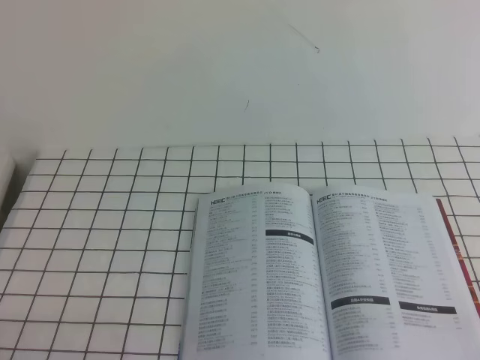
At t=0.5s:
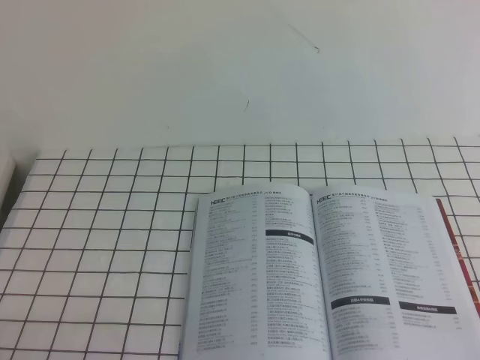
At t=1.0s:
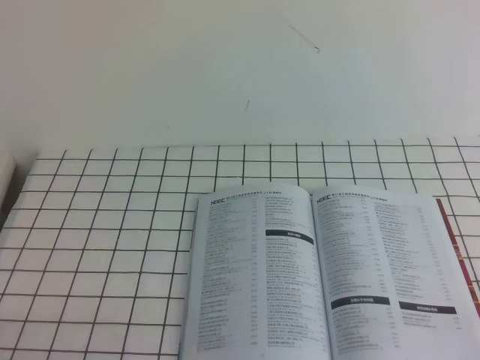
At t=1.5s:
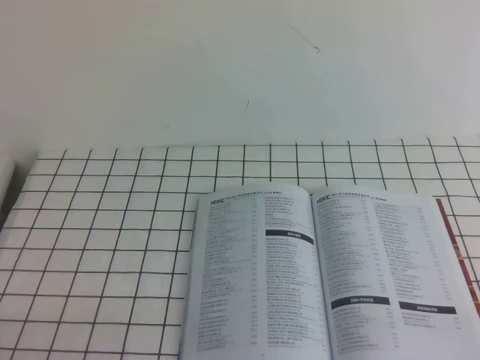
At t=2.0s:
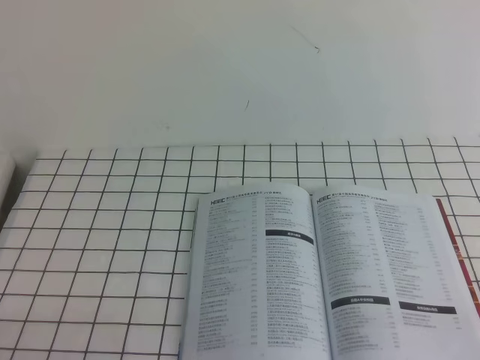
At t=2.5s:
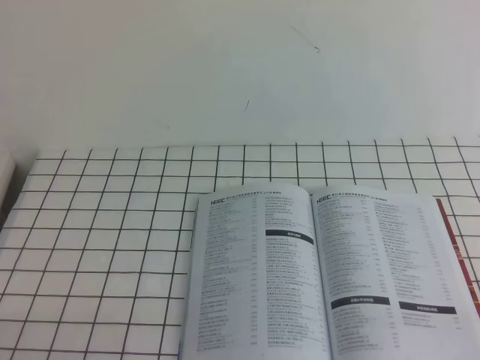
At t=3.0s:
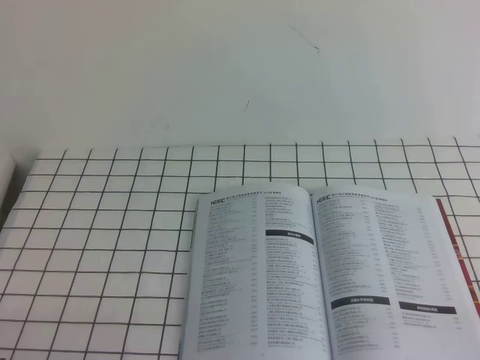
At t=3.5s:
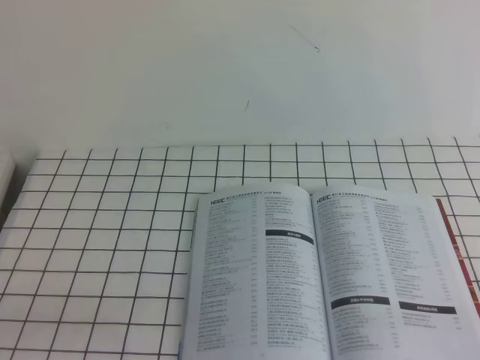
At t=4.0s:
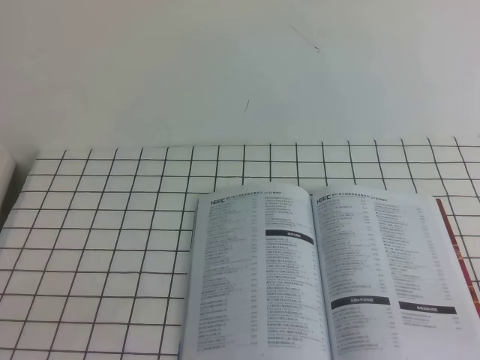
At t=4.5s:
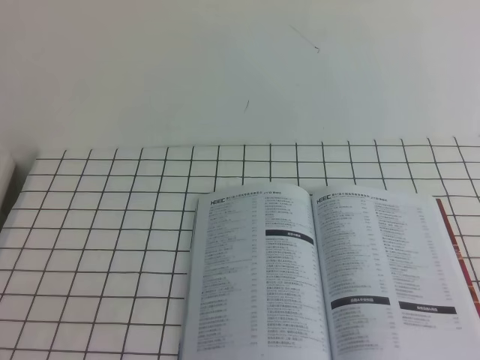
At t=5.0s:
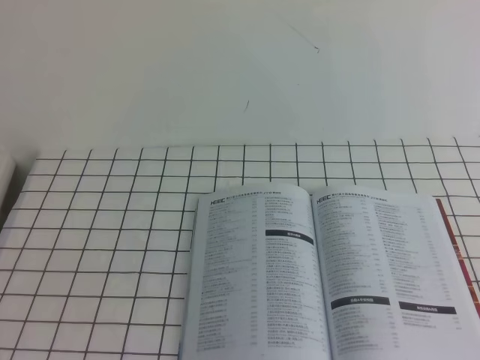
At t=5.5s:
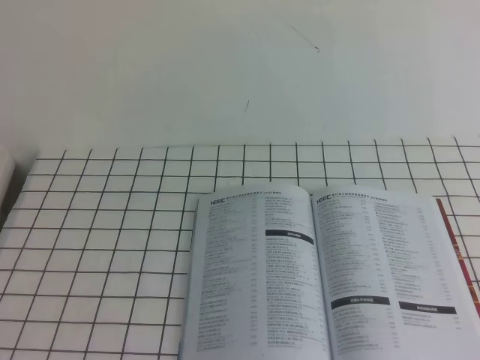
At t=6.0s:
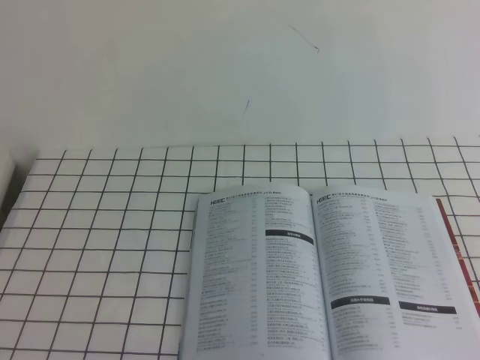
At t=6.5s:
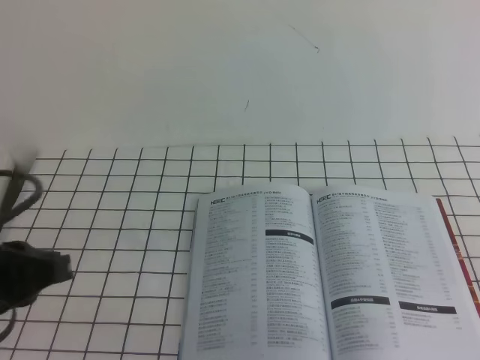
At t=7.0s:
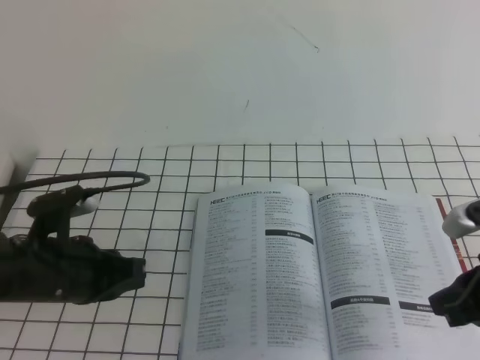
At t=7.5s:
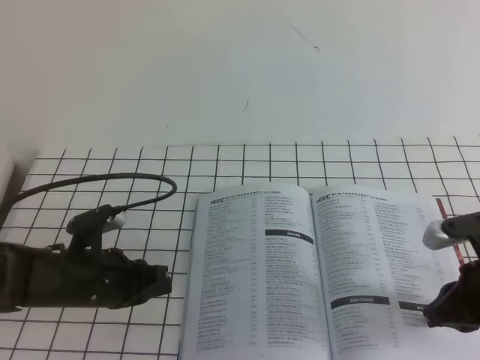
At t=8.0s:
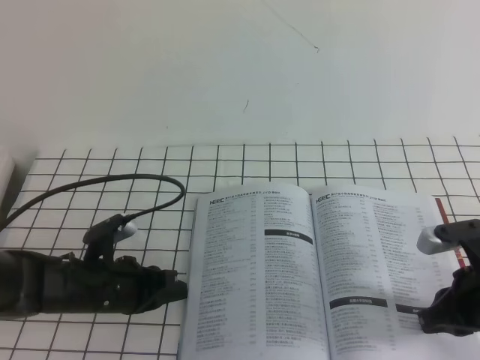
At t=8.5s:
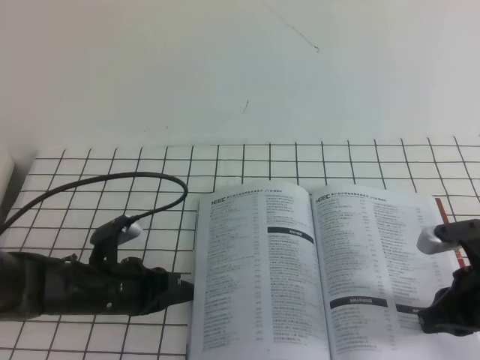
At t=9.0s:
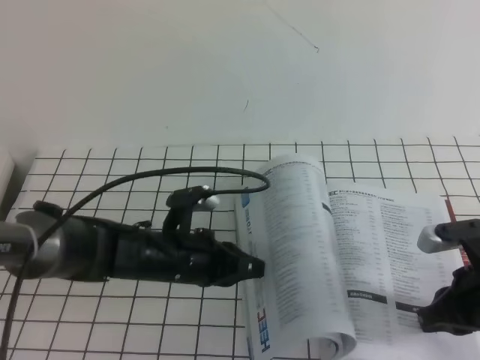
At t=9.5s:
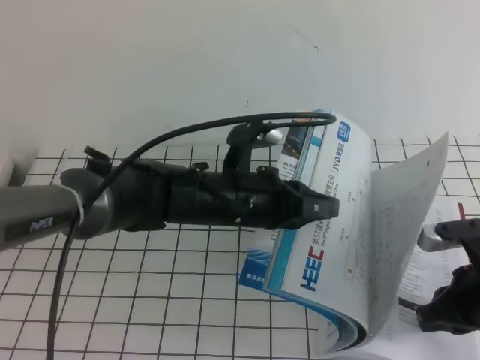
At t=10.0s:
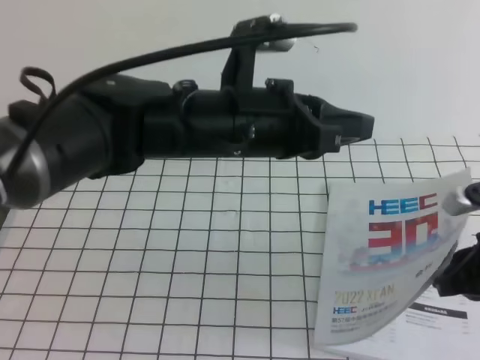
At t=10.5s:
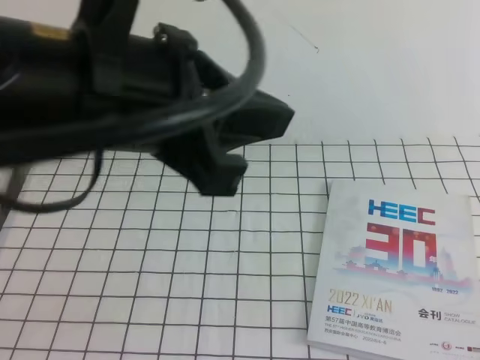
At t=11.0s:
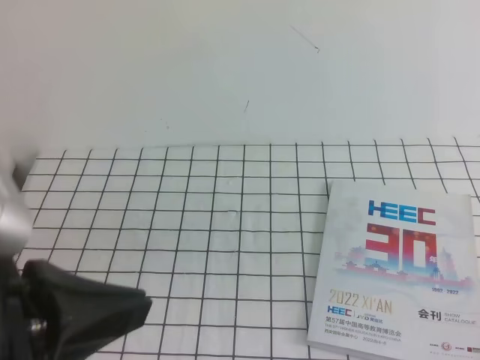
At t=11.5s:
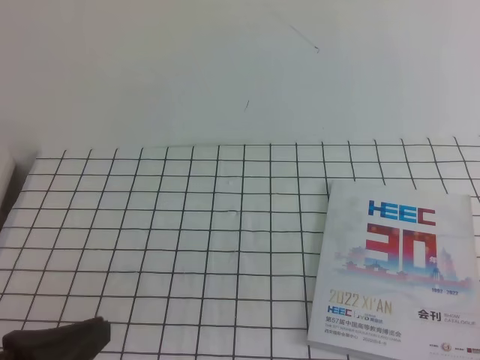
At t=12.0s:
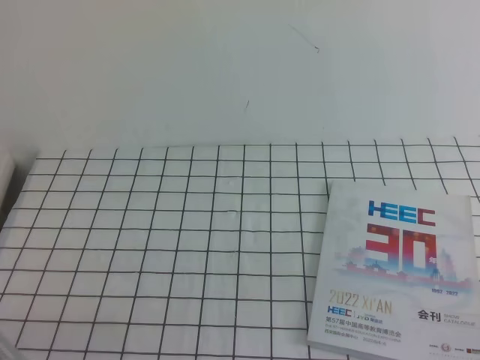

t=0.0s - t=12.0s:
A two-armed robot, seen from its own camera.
Task of the whole recording: on the white tablecloth, hold the book with one hand and close it with the other.
t=0.0s - t=2.0s: The two grippers keep their place.
t=6.0s - t=8.0s: Both grippers move downward and forward, some 30 cm.
t=8.0s - t=10.0s: The left gripper is displaced upward and to the right by some 25 cm; the right gripper is displaced upward by roughly 5 cm.
t=10.0s - t=12.0s: The left gripper moves backward and to the left, some 30 cm, while the right gripper goes about 25 cm backward and upward.

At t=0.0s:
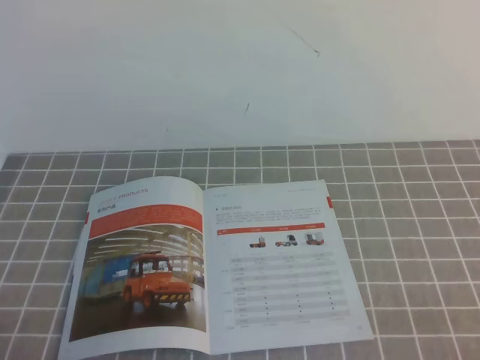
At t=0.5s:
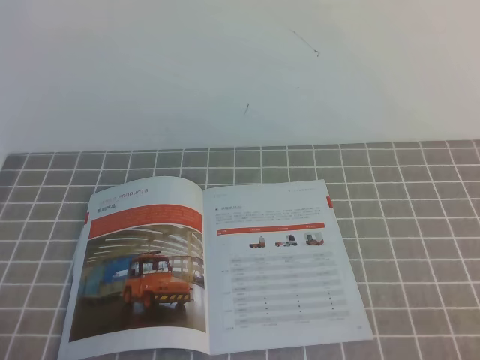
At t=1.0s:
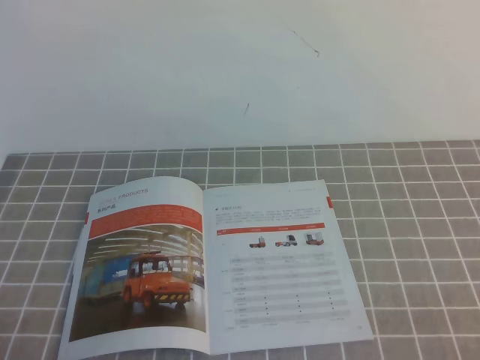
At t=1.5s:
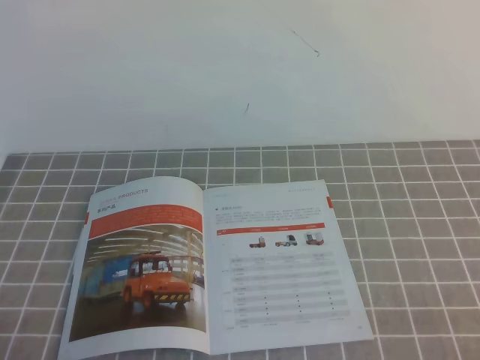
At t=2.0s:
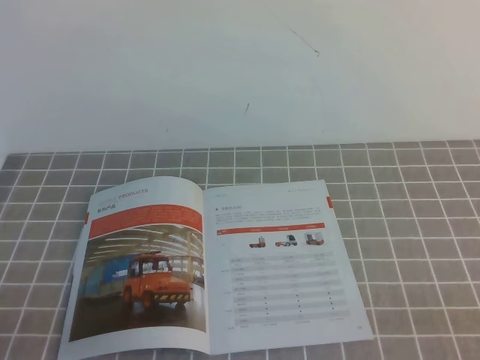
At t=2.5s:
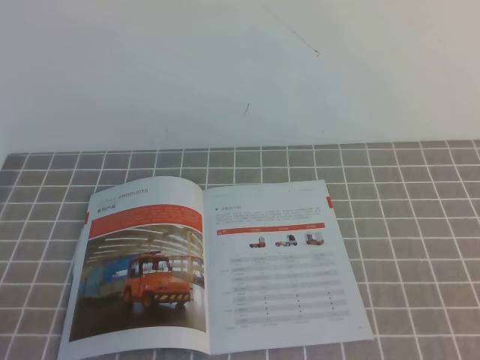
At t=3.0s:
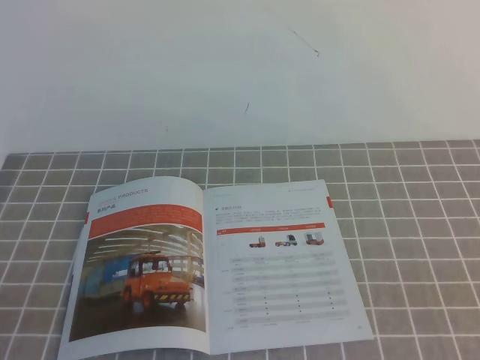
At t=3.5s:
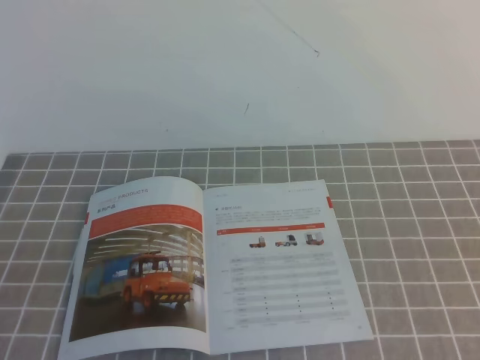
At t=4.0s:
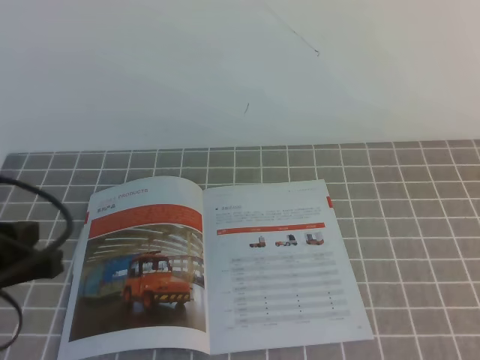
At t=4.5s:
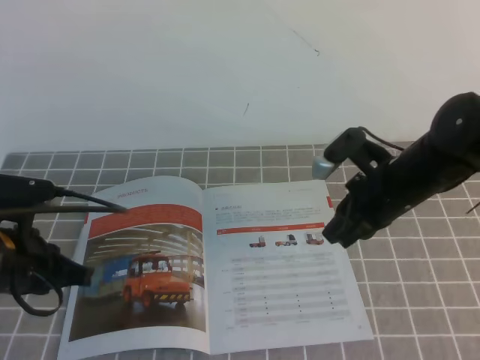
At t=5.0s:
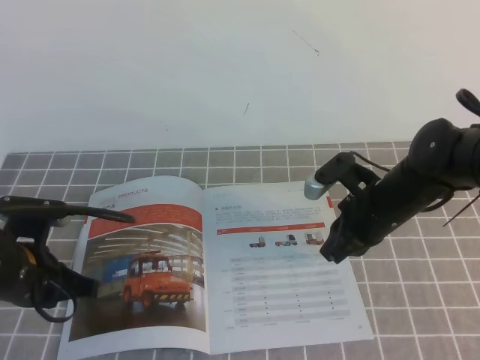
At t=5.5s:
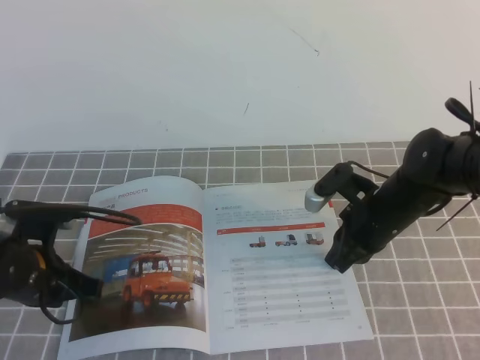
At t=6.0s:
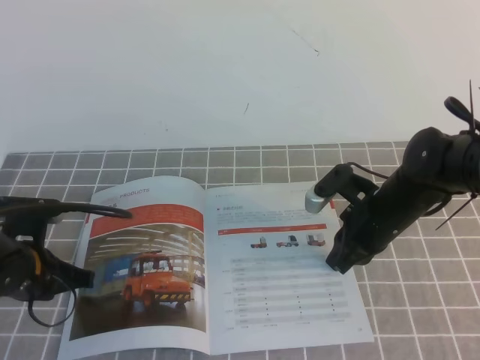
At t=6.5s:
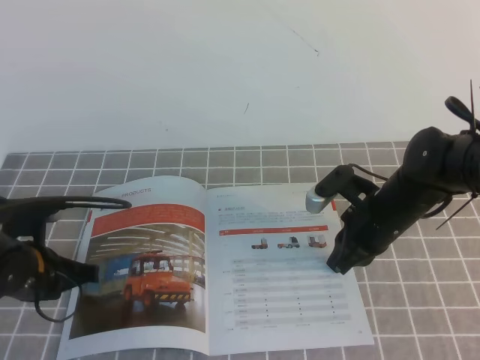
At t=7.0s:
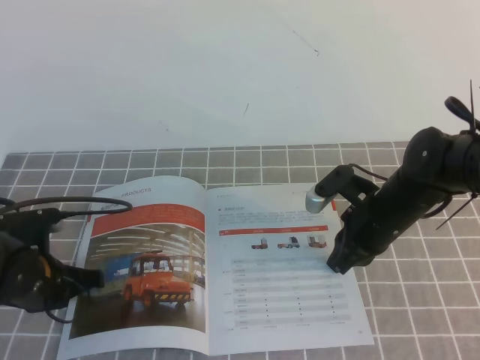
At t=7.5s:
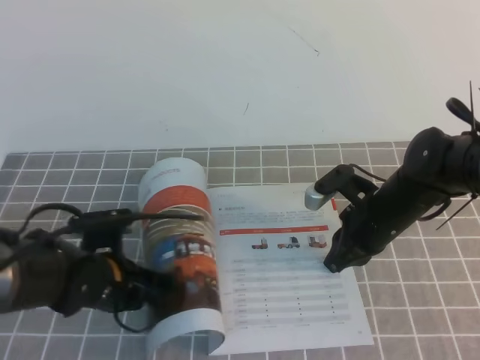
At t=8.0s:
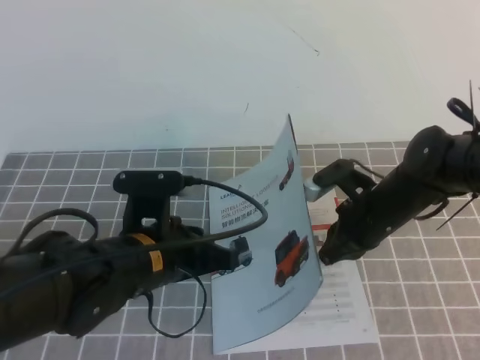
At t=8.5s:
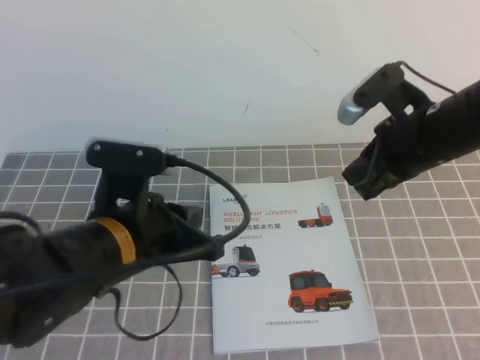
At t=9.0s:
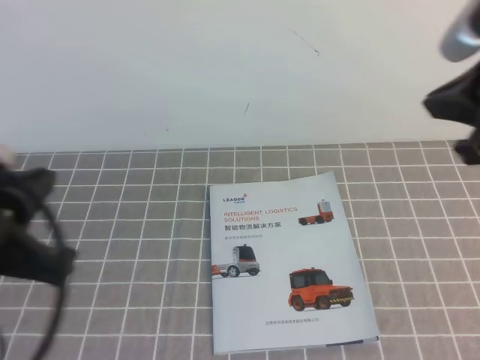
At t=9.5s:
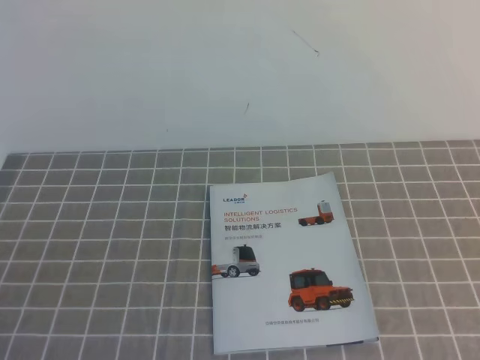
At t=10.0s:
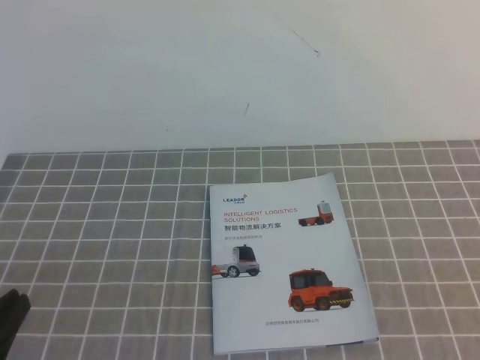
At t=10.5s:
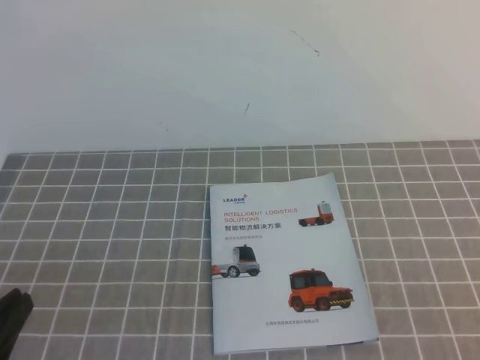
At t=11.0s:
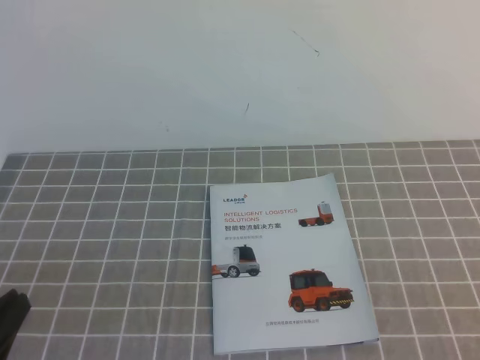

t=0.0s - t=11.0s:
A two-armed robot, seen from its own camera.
Task of the whole recording: on the grey tablecloth, hold the book with one hand and close it with the other.
t=3.5s - t=5.5s: The left gripper shifts approximately 25 cm forward and downward. The right gripper heads forward, downward and to the left, covering roughly 40 cm.
t=5.5s - t=7.5s: The left gripper heads to the right, covering approximately 5 cm.
t=7.5s - t=9.0s: Both grippers travel together upward and backward, some 25 cm.
t=9.0s - t=11.0s: The right gripper is displaced backward and downward by approximately 25 cm. Meanwhile the left gripper goes approximately 15 cm backward and downward.
